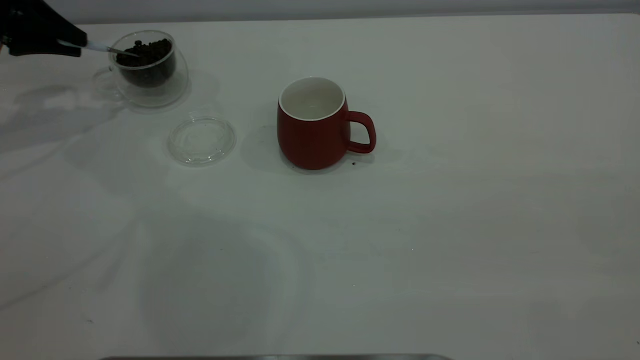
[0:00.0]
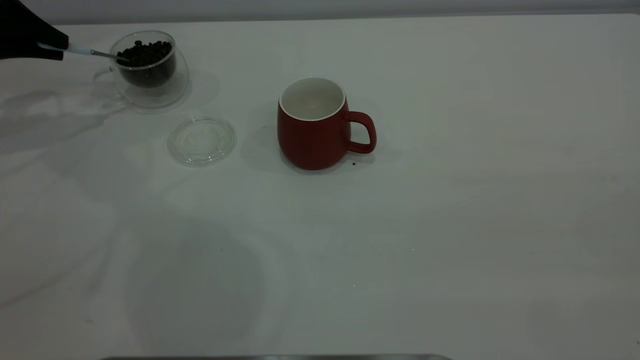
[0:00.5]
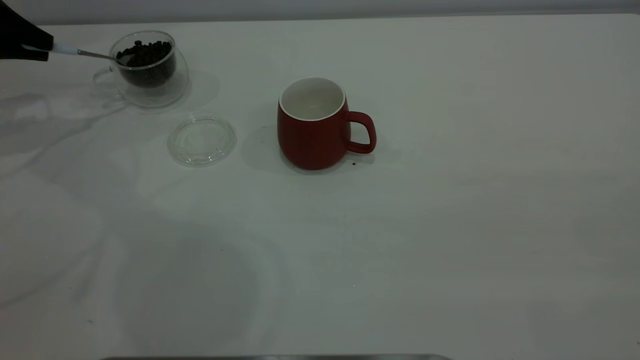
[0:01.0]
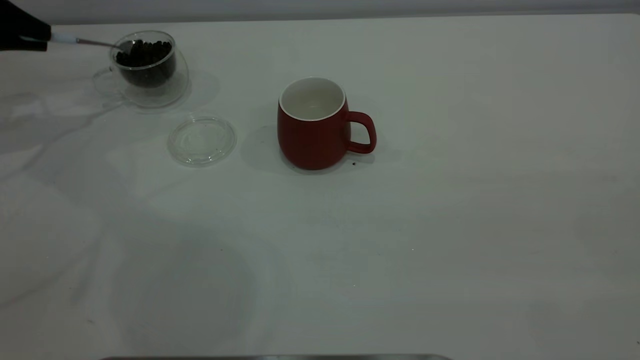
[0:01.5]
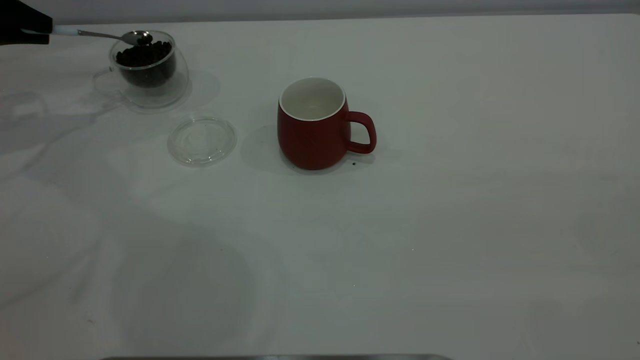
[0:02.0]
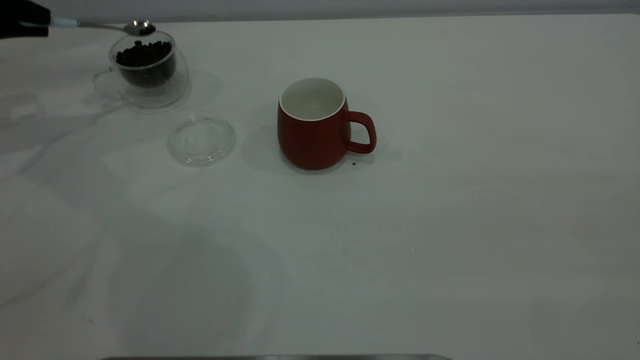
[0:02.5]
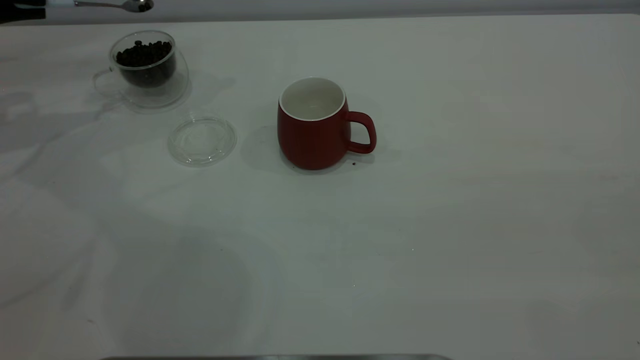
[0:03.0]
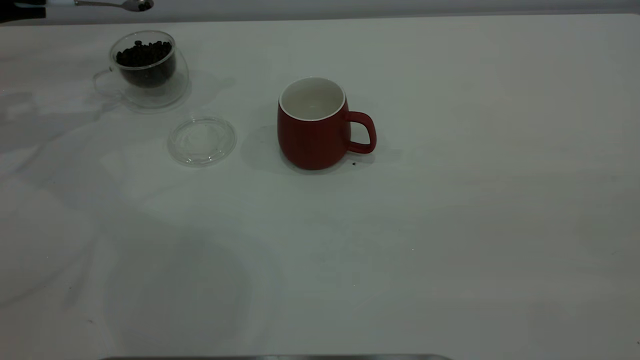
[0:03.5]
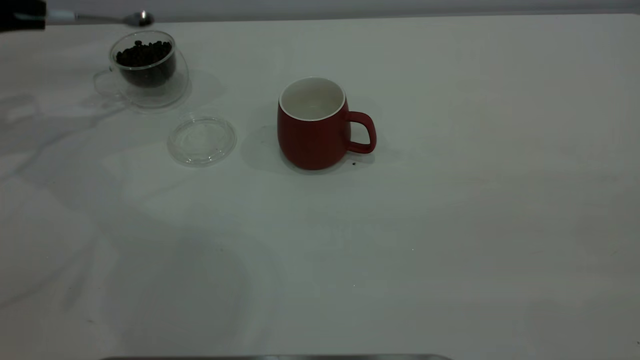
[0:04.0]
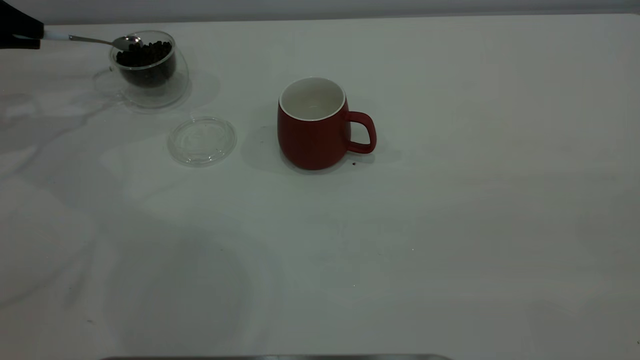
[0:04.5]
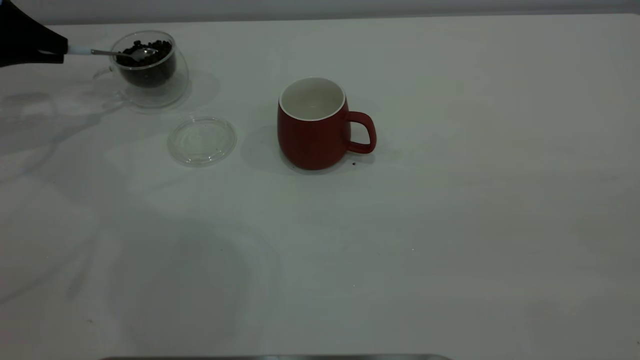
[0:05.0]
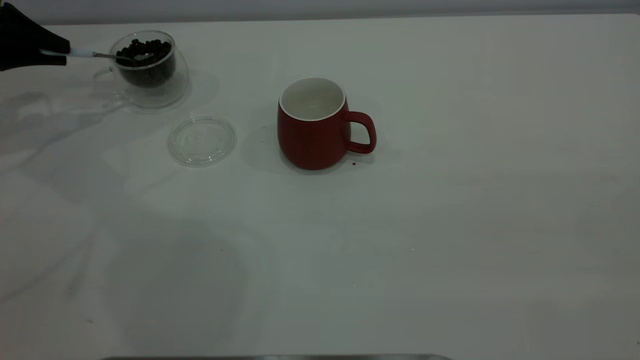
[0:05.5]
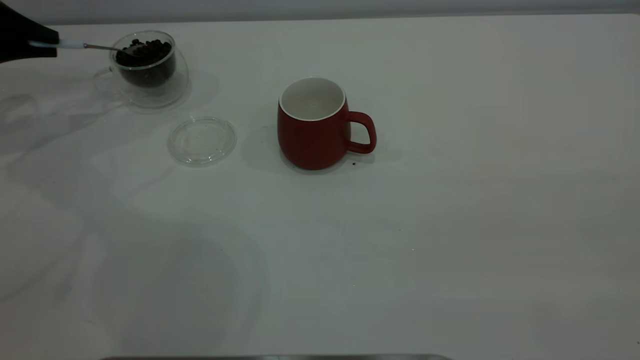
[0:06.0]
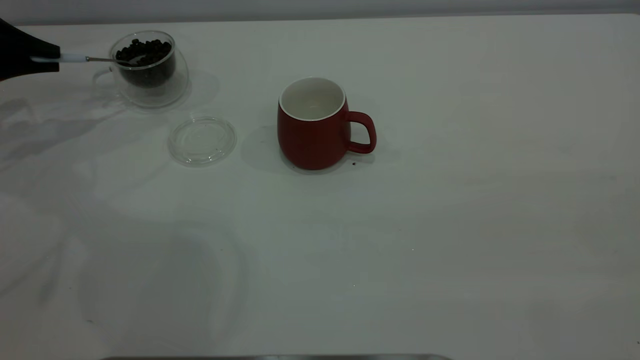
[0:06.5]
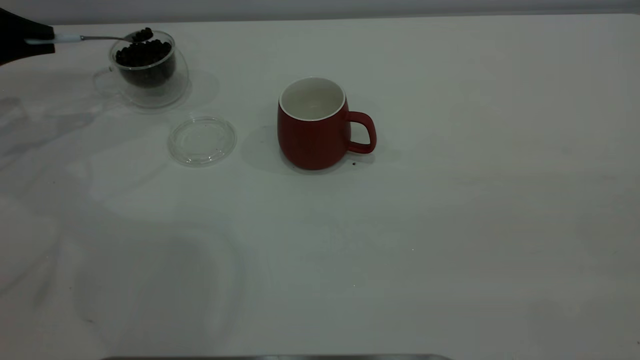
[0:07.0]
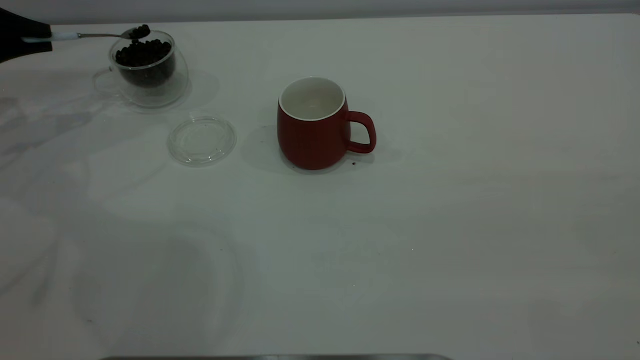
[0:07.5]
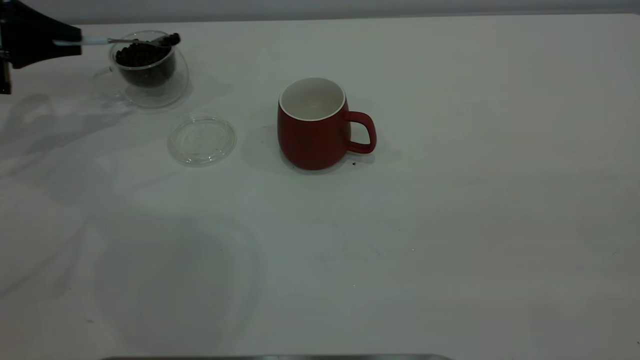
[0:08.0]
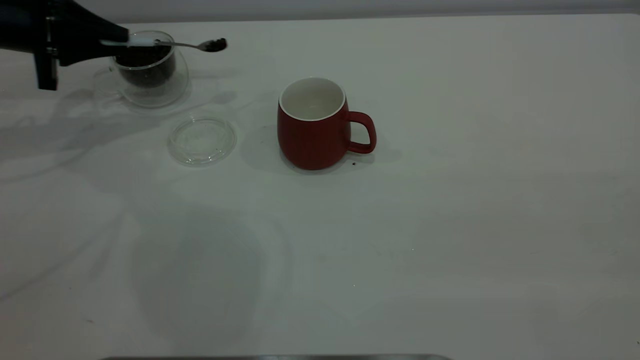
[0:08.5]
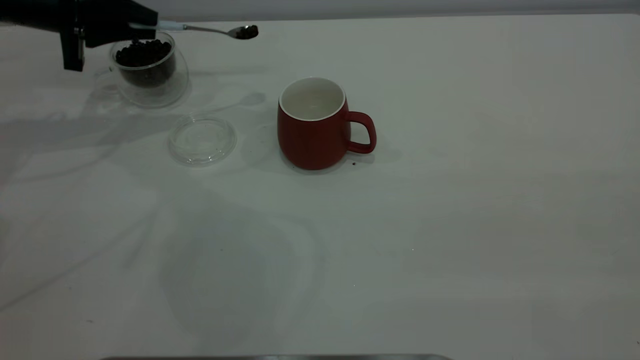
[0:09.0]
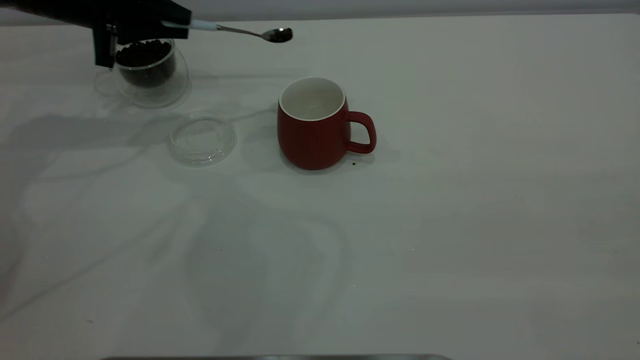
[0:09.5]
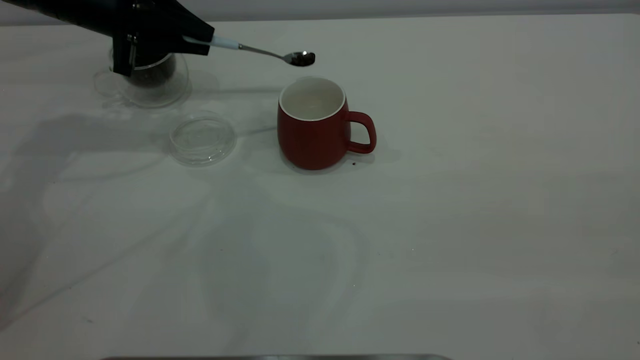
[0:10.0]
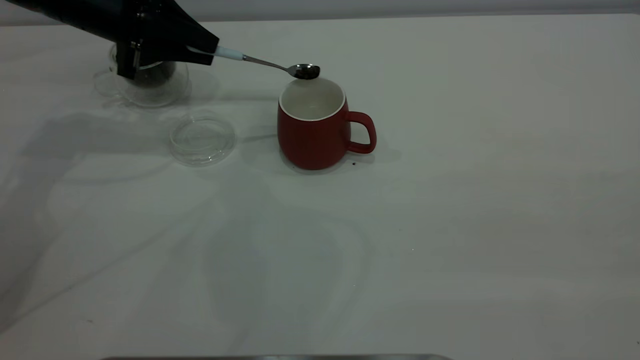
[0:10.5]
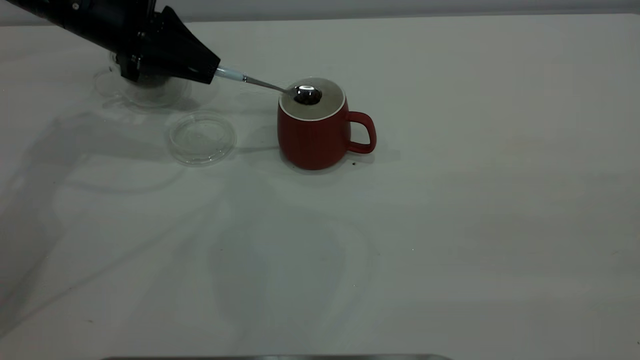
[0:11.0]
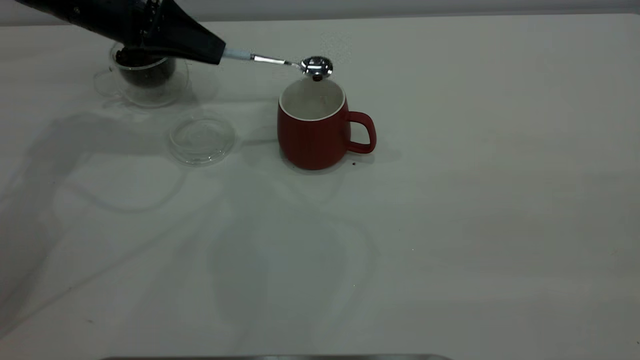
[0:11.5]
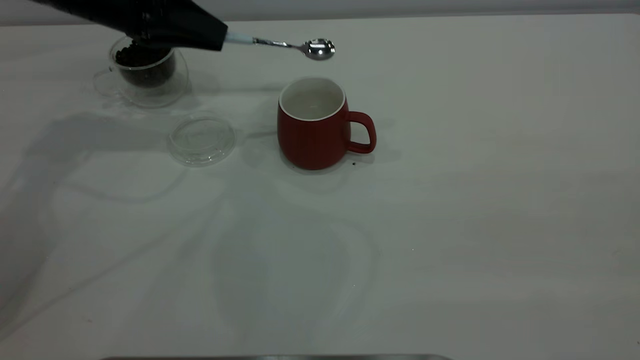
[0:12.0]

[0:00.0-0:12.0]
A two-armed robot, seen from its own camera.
Task of the whole recording: the right gripper place the red cup in the center of the table, the left gripper take the blue spoon from the cup lid and scoop out the coffee beans from the coffee cup and put them into the red cup, the left gripper put the spoon back into the cup lid.
0:00.0 to 0:02.0: The grippers move only a little.
0:04.0 to 0:08.0: The grippers stay close to where they were, moving slightly.
0:08.0 to 0:10.0: The left gripper is displaced to the right by roughly 15 cm.

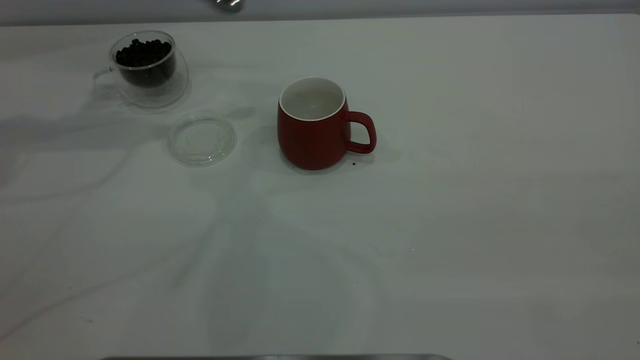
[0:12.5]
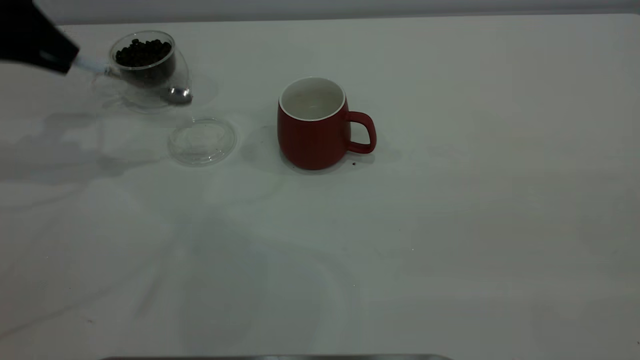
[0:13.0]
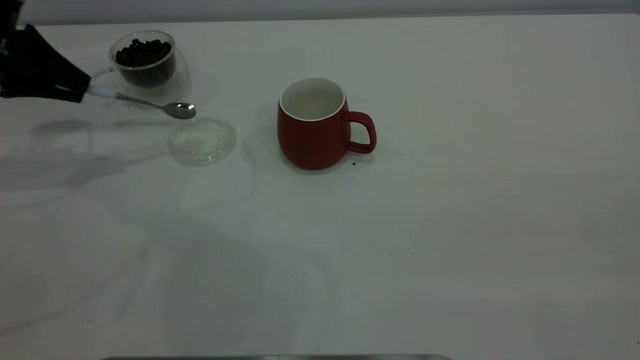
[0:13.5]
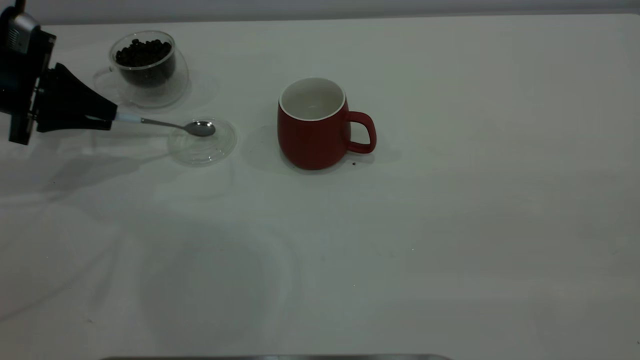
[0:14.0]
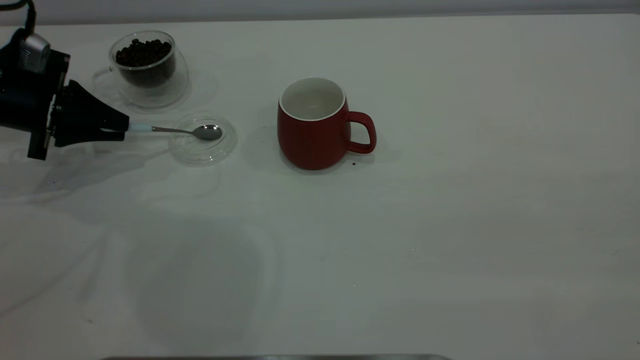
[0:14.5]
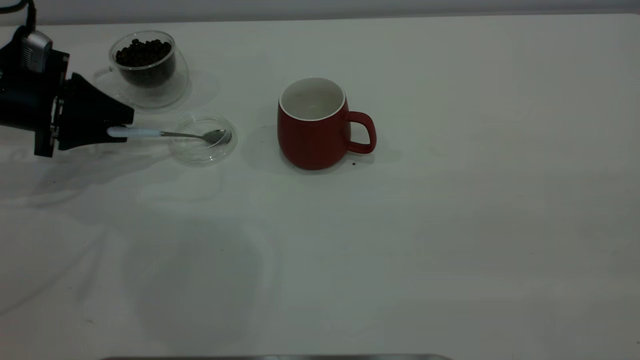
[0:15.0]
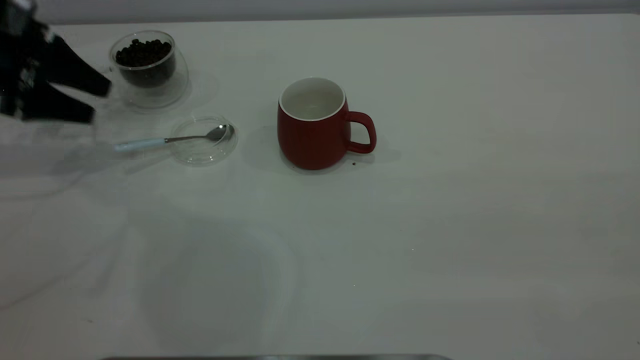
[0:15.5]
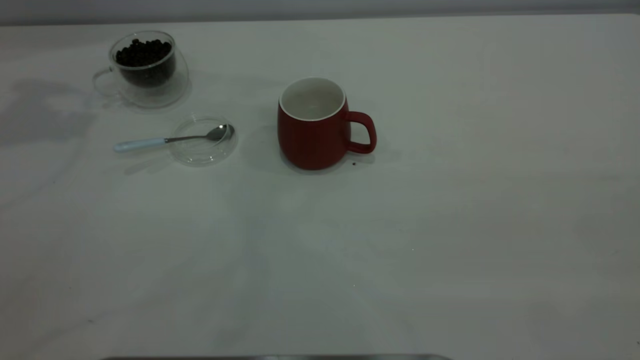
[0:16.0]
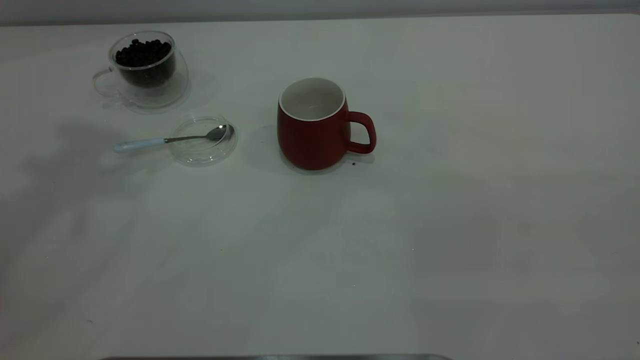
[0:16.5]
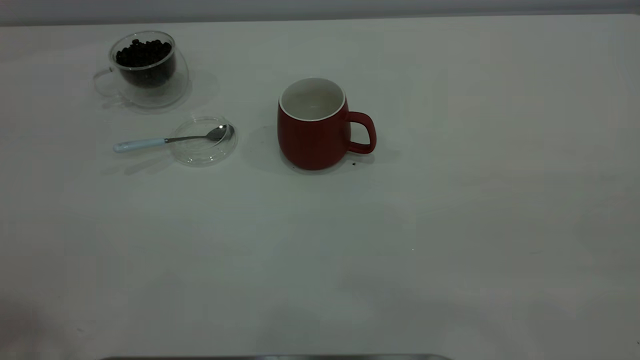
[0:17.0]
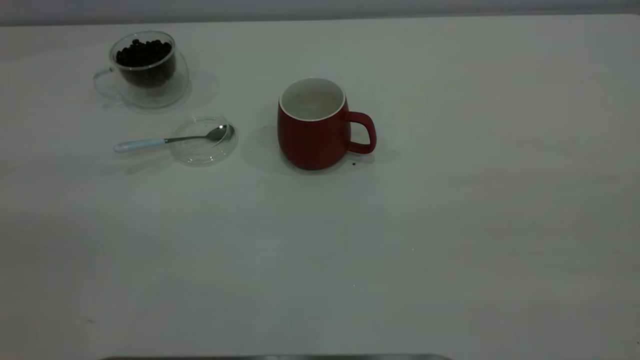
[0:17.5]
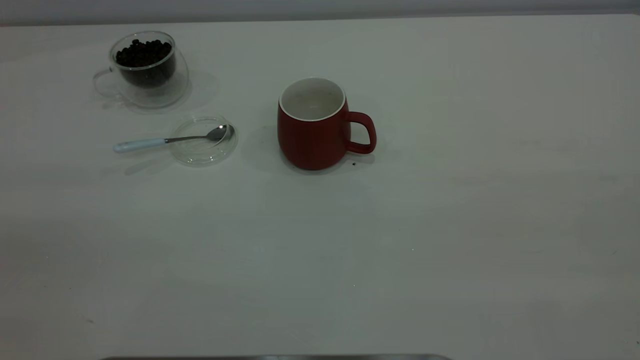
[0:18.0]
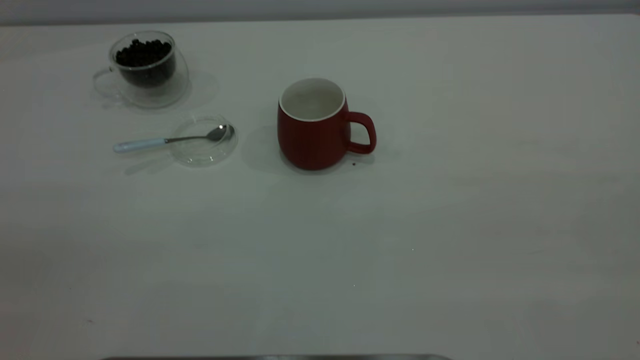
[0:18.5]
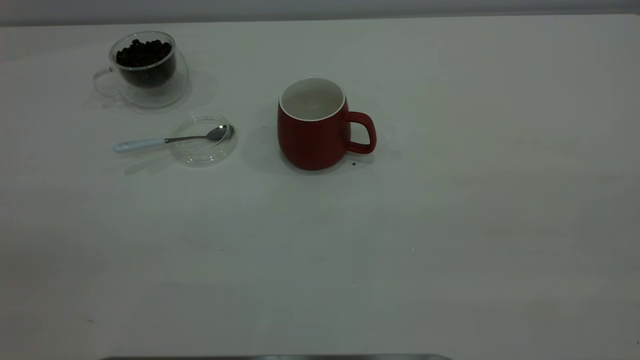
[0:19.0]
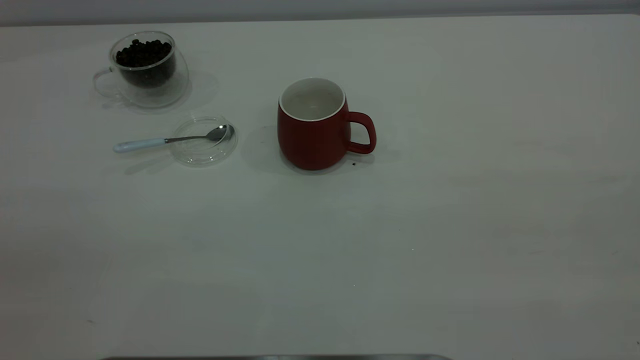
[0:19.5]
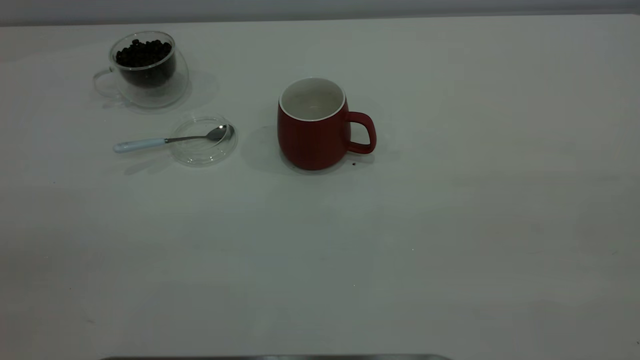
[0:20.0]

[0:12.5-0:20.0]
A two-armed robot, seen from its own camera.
Task of the whole recording: the right gripper place the red cup in the center of the table, the left gripper take the blue spoon from the cup lid and scoop out the coffee beans from the coffee cup and put them into the red cup, the left gripper put the spoon back into the cup lid.
Step, 0:12.5 to 0:15.5: Place the spoon back in its original place.
0:12.5 to 0:14.5: The left gripper travels downward by about 15 cm.
0:14.5 to 0:16.5: The left gripper heads upward, covering about 40 cm, and opens.
